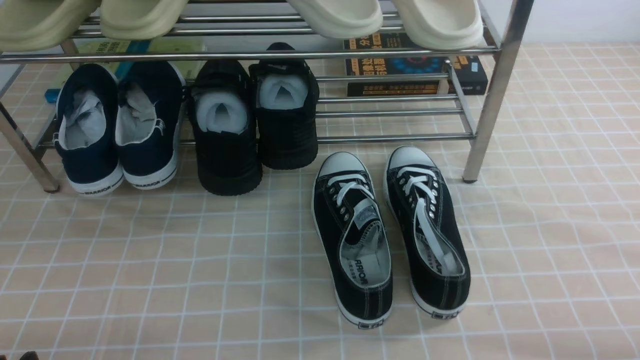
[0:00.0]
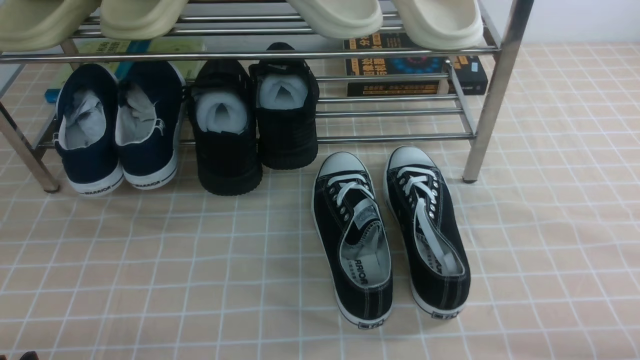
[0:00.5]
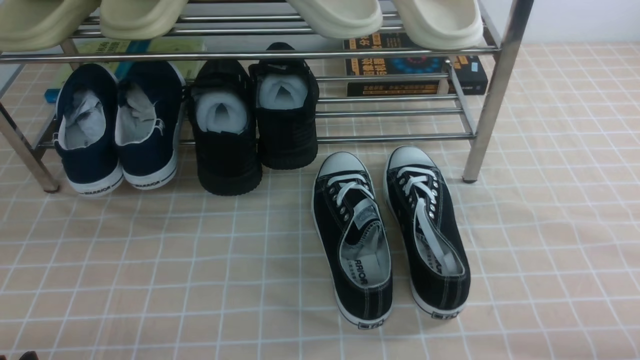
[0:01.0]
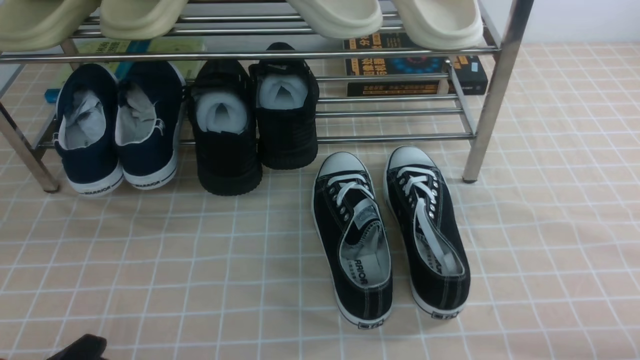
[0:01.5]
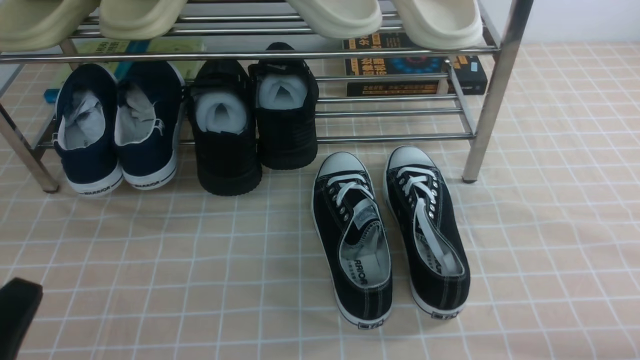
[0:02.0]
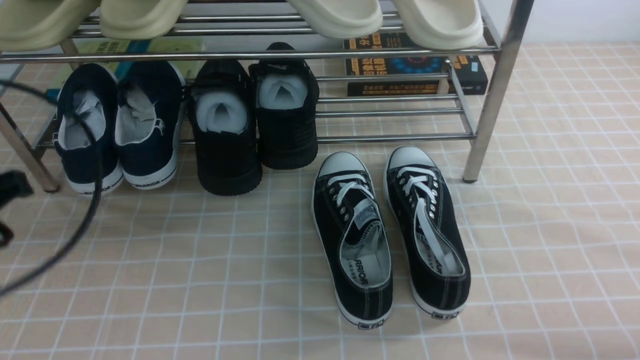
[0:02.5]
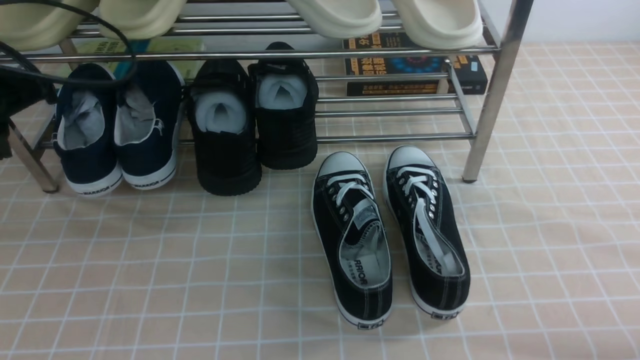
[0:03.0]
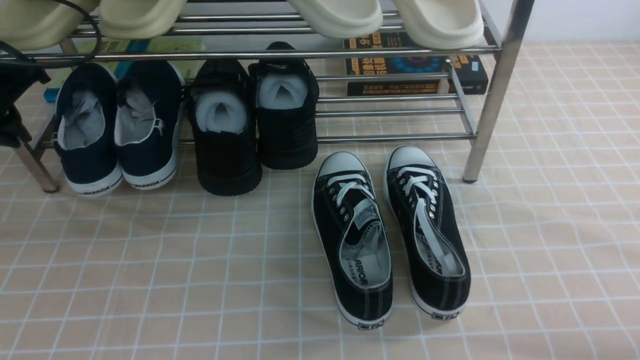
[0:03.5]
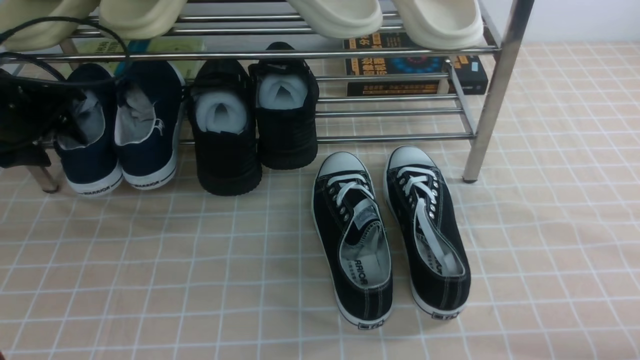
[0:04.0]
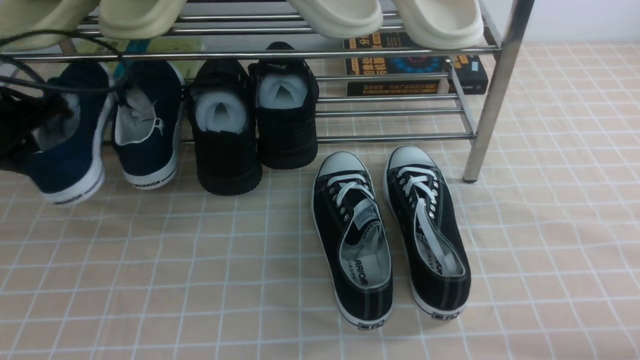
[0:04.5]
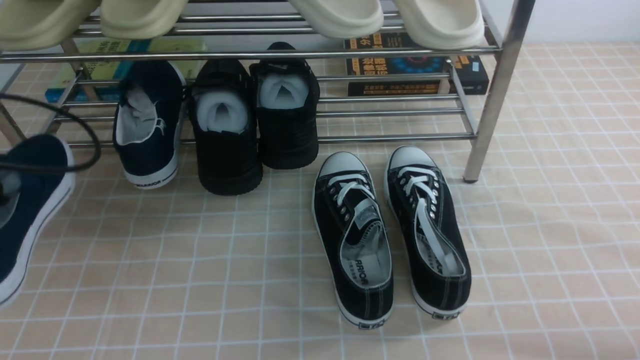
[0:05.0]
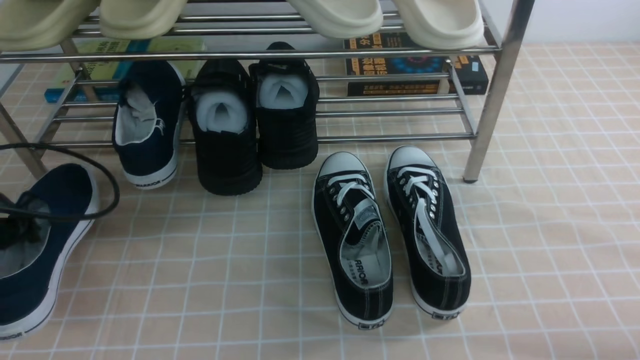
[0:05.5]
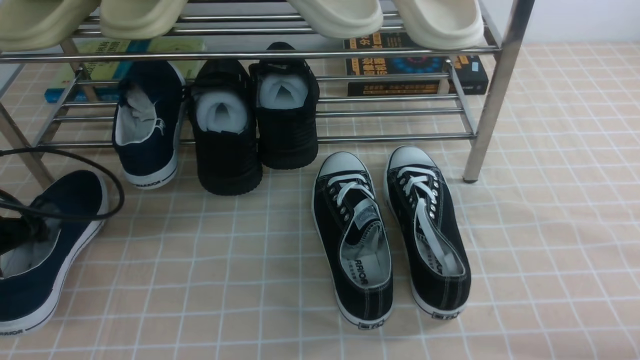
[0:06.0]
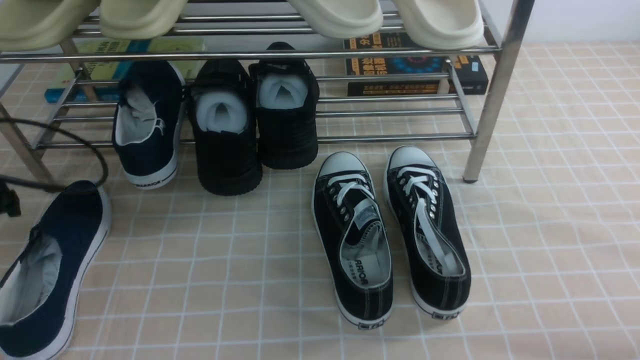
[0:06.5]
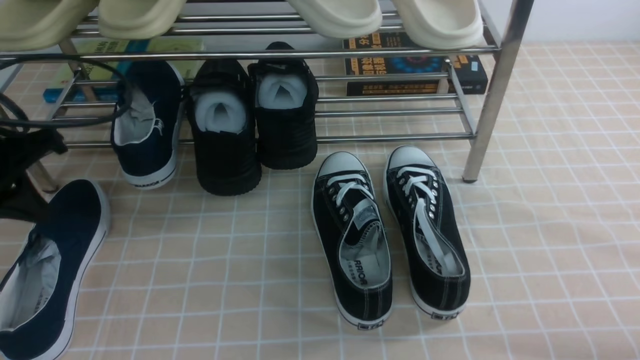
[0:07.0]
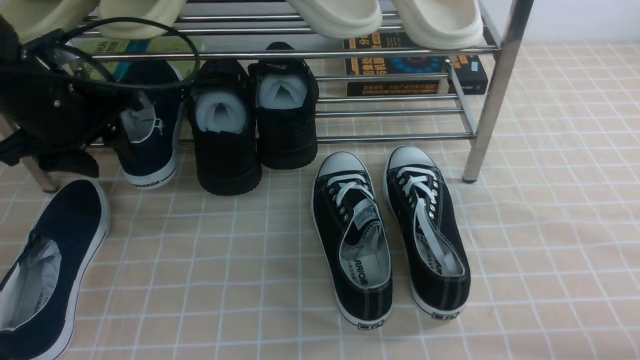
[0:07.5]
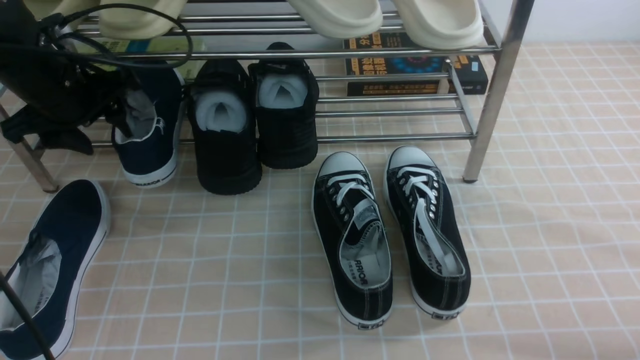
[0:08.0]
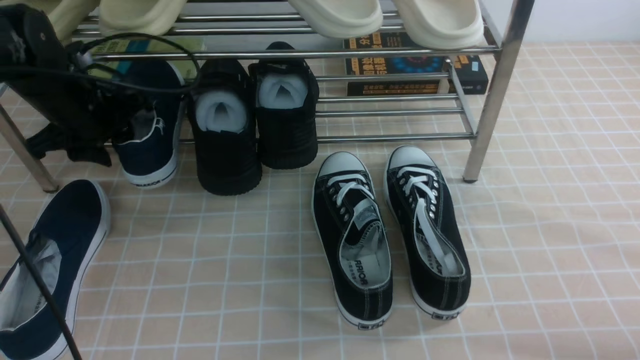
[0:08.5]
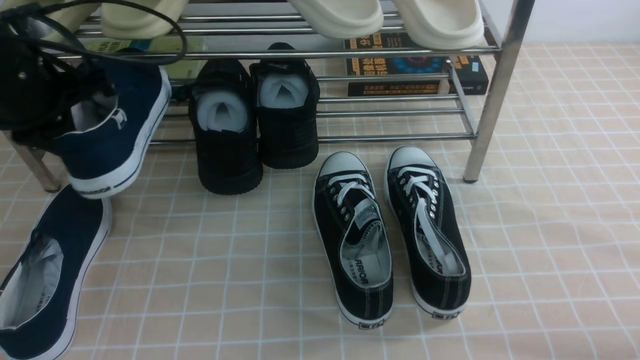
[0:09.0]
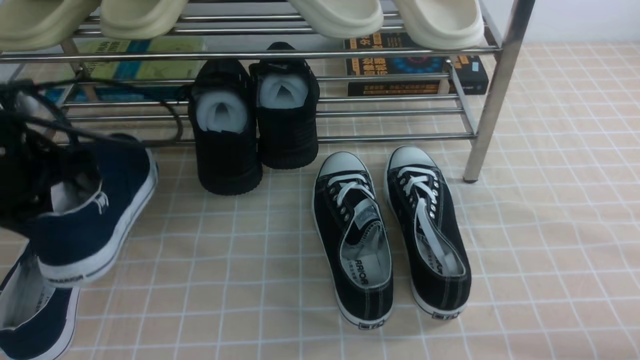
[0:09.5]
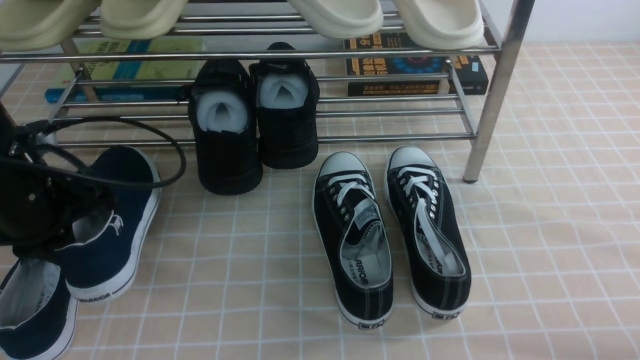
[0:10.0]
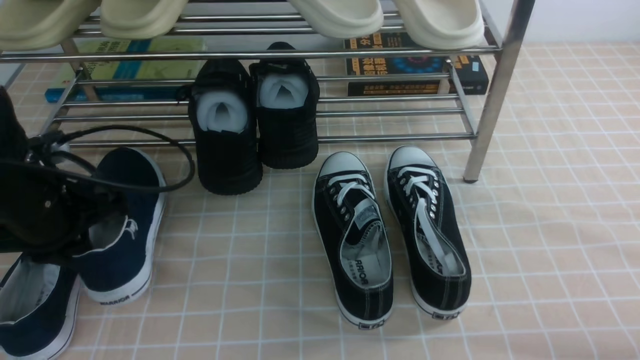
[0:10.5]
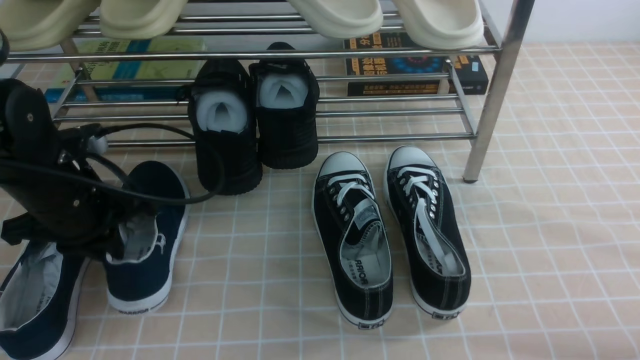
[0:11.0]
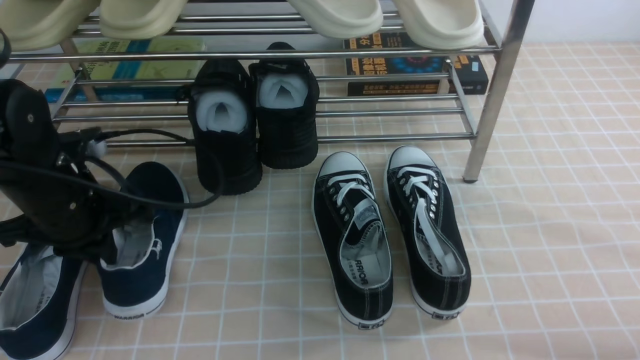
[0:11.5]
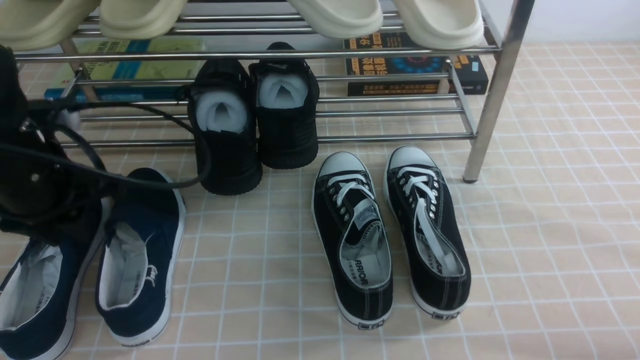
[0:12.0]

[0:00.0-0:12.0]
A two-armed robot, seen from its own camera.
Step, 0:00.0 to 0:04.0: use the left arm to clamp a shoe on the left side of the shoe rack.
Step, 0:04.5 to 0:06.5: Use your left arm to remove the clamped shoe from the shoe rack and put it down.
Step, 0:07.0 to 0:08.5: use the left arm to clamp a shoe on the left side of the shoe rack.
0:00.0 to 0:02.0: The left gripper heads upward, covering approximately 5 cm, and closes up.
0:02.0 to 0:04.0: The left gripper heads forward, covering about 35 cm, and opens.
0:04.0 to 0:06.0: The left gripper goes some 10 cm backward, and closes its fingers.
0:06.0 to 0:08.0: The left gripper is displaced forward, to the right and upward by approximately 15 cm, and opens its fingers.
0:08.0 to 0:10.0: The left gripper is displaced backward by roughly 10 cm, and closes its fingers.
0:10.0 to 0:12.0: The left gripper opens its fingers.

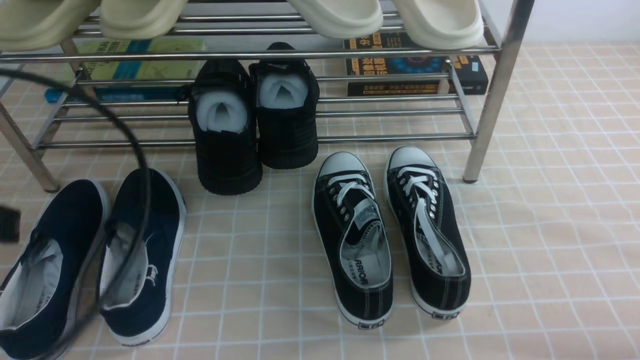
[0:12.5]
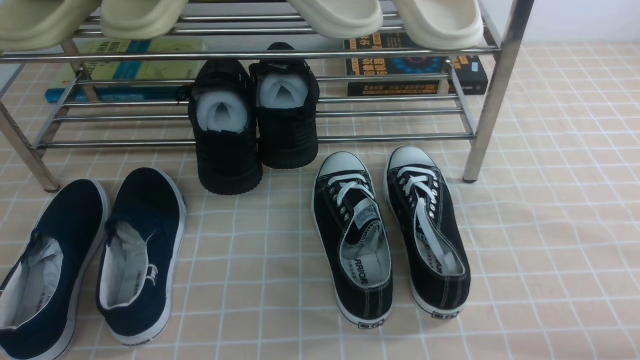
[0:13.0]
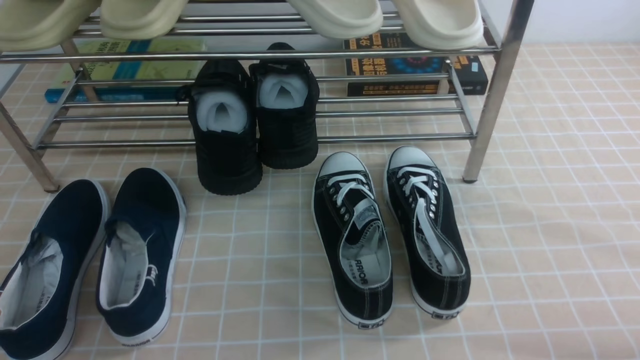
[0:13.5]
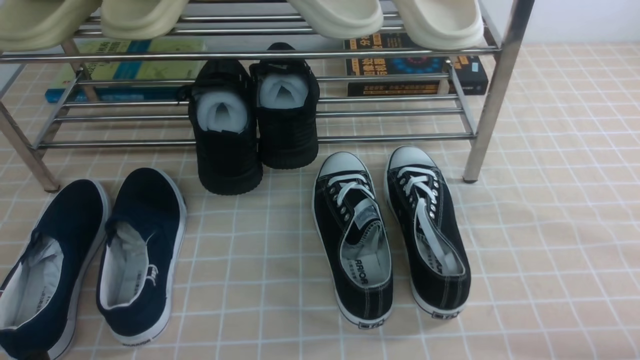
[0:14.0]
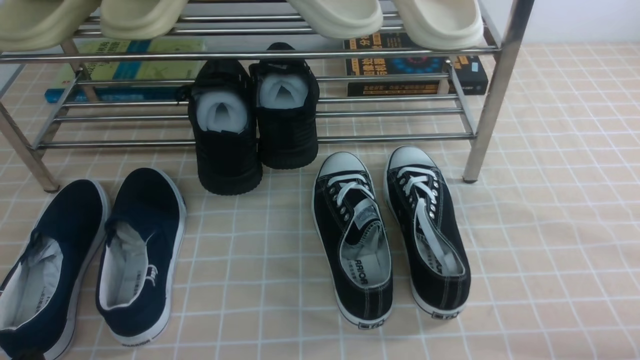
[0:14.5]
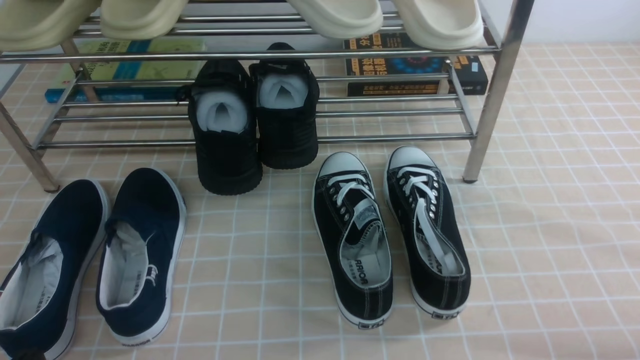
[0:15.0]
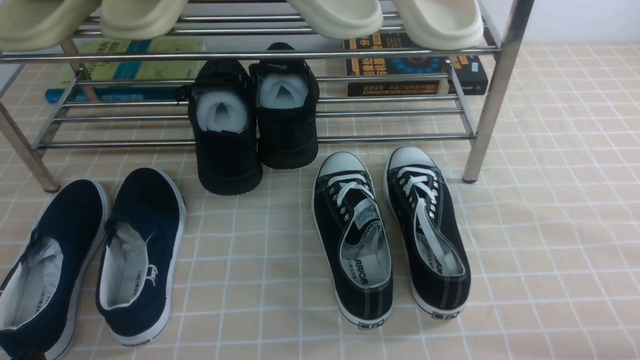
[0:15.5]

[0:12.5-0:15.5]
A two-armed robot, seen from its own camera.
0:12.5 to 0:14.0: The left gripper shifts some 20 cm downward and backward.
0:14.0 to 0:15.5: Both grippers stay about where they are.
